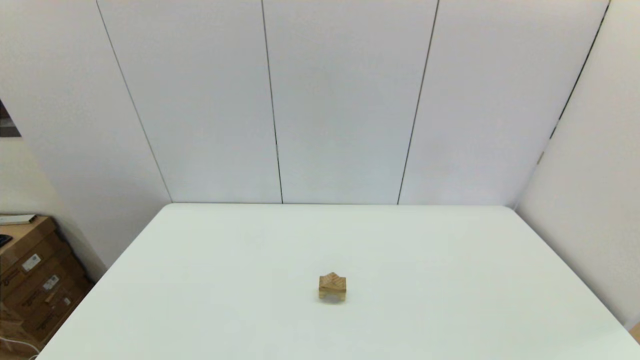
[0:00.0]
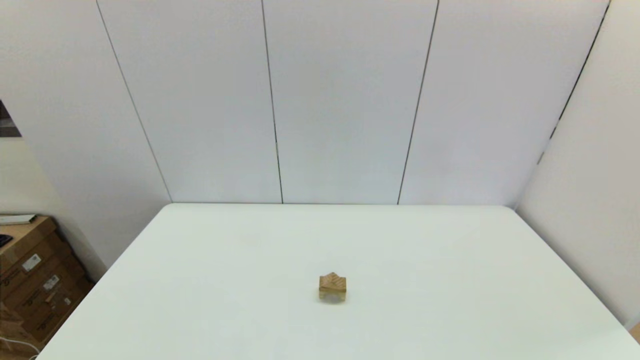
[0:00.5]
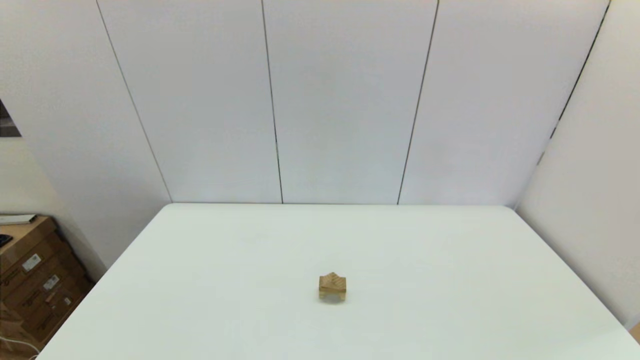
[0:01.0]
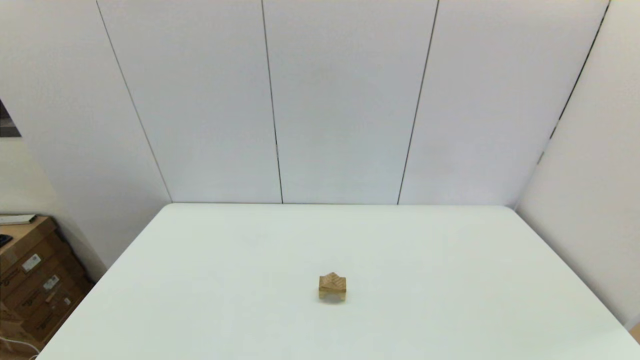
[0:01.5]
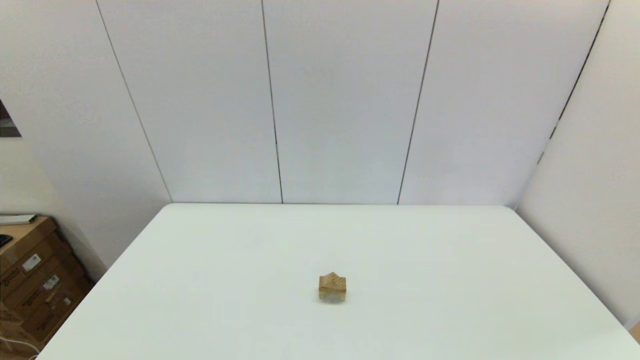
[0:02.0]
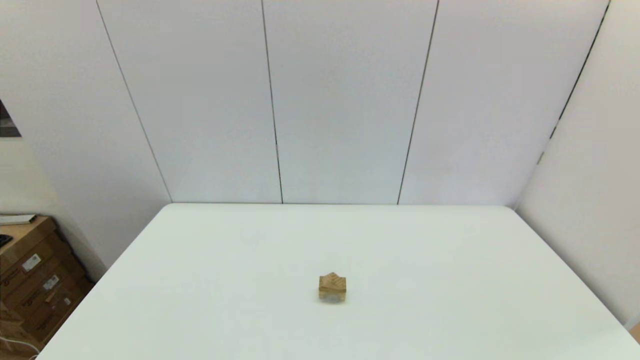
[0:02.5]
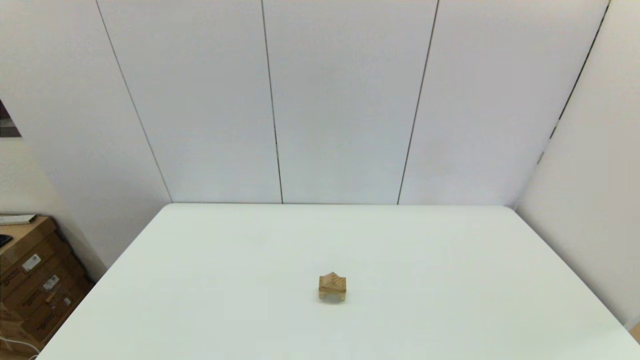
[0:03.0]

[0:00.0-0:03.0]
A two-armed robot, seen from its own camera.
Task of the whole recording: place the arched building blocks in the center of the table, set up the rectangular building blocks, and then set up the triangular building blocks.
0:01.5 to 0:03.0: Both grippers stay put.

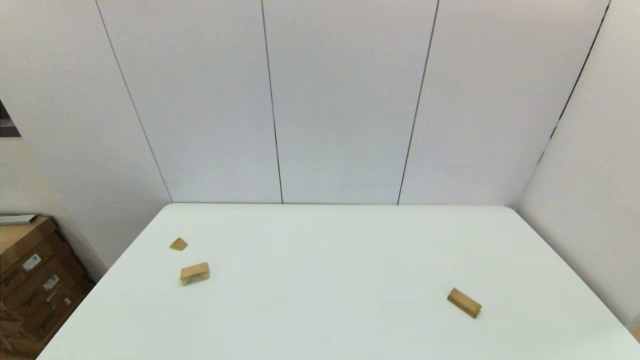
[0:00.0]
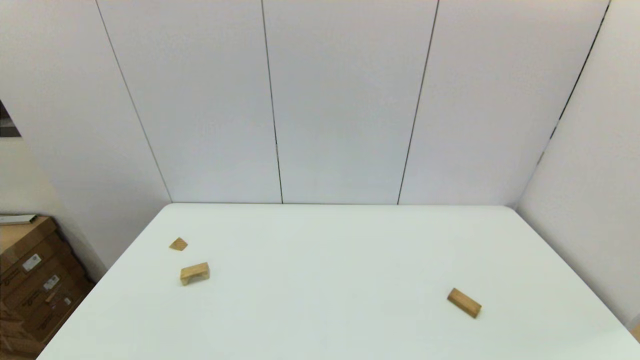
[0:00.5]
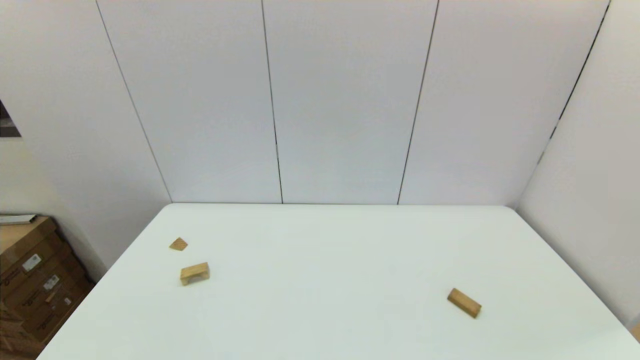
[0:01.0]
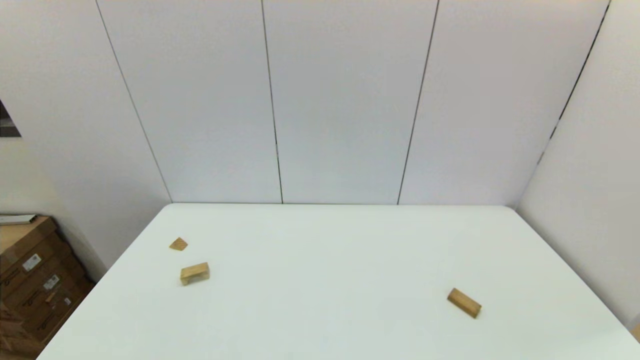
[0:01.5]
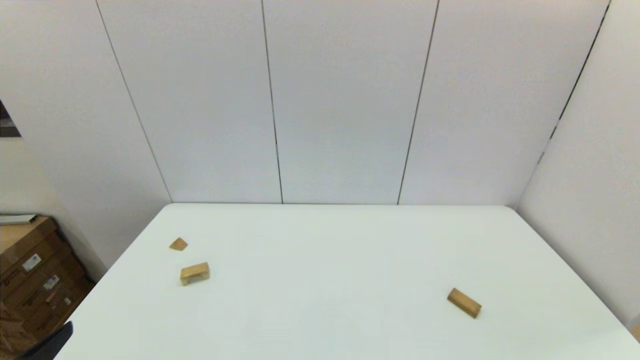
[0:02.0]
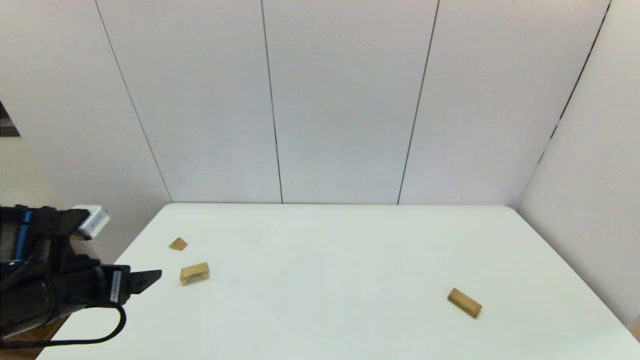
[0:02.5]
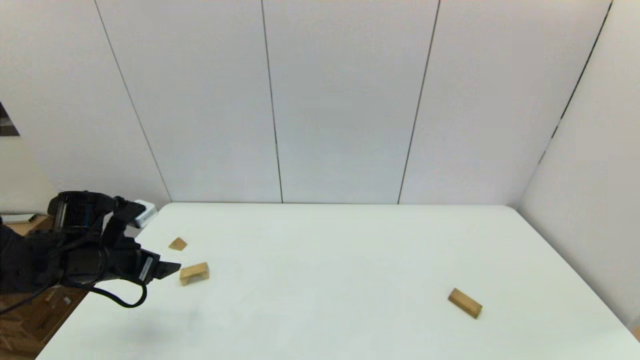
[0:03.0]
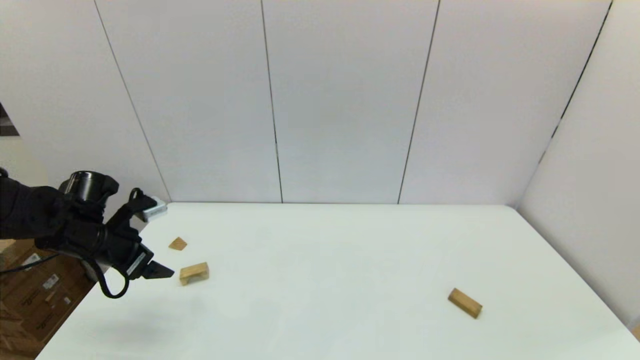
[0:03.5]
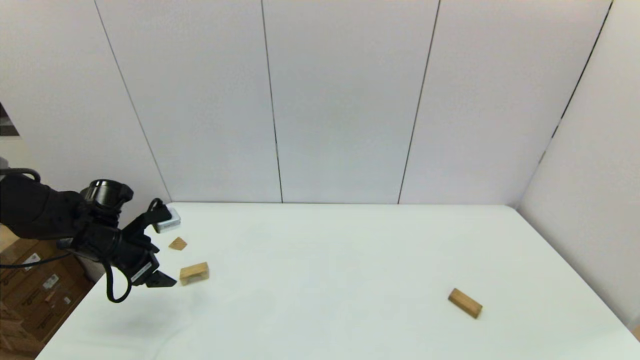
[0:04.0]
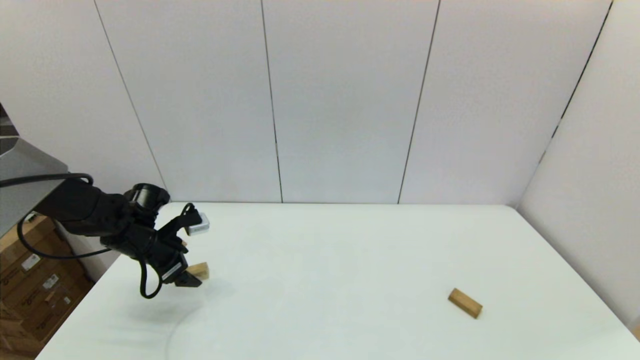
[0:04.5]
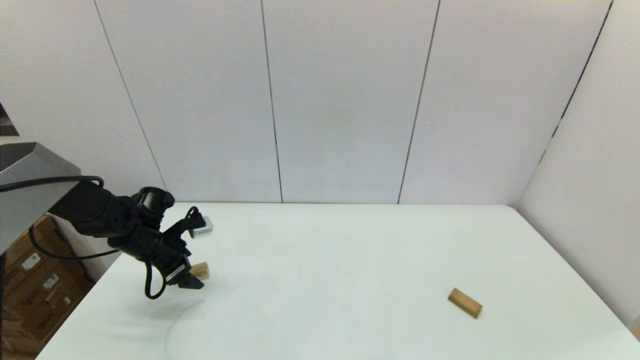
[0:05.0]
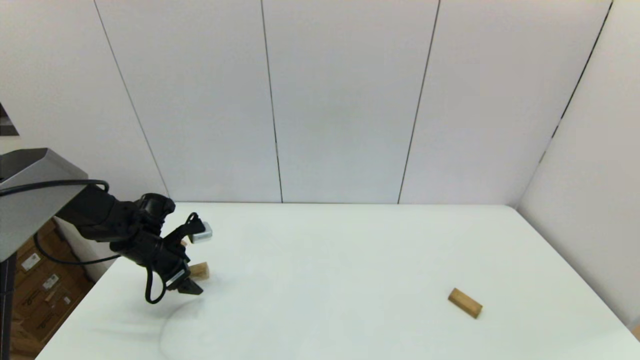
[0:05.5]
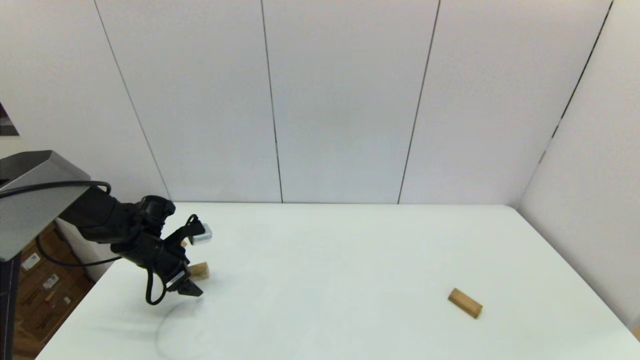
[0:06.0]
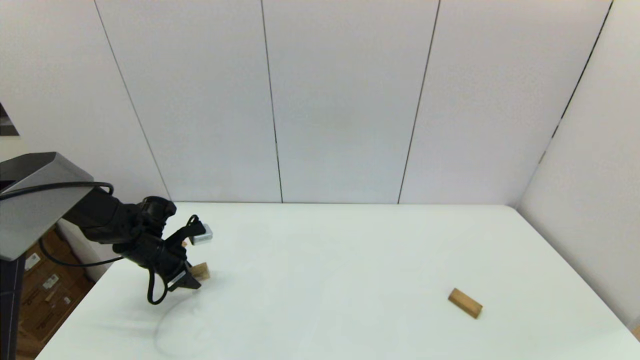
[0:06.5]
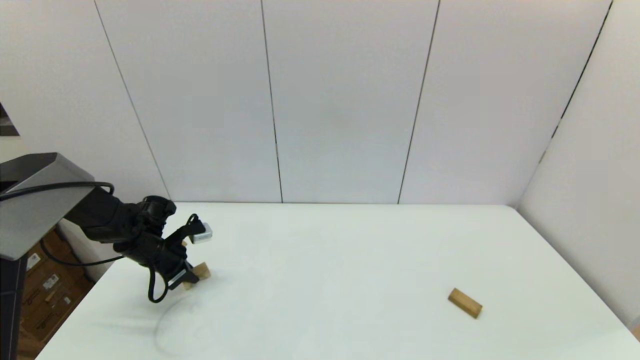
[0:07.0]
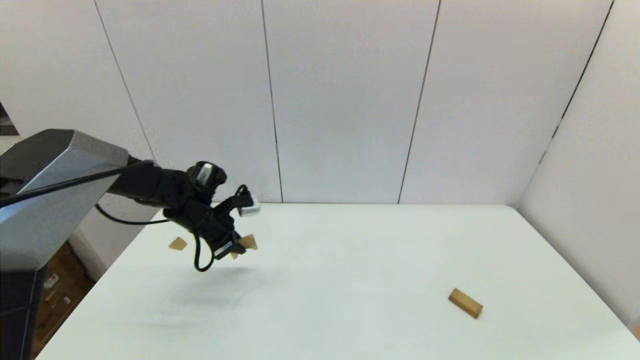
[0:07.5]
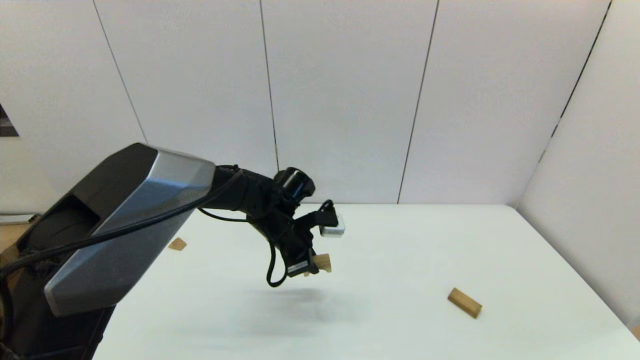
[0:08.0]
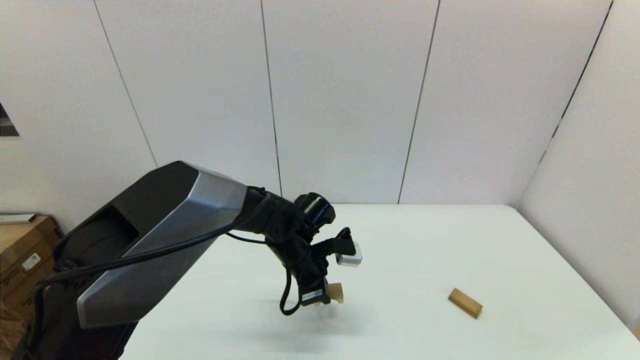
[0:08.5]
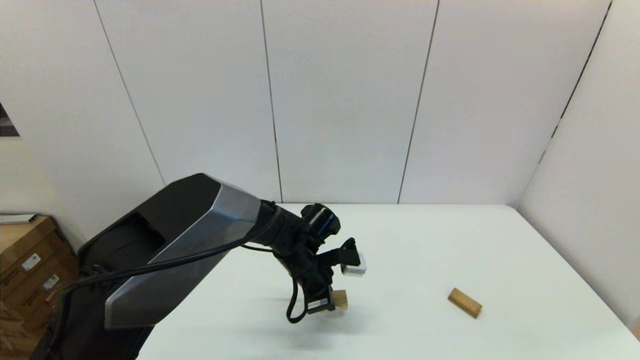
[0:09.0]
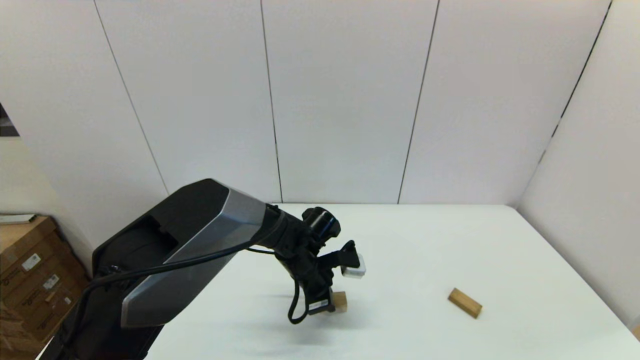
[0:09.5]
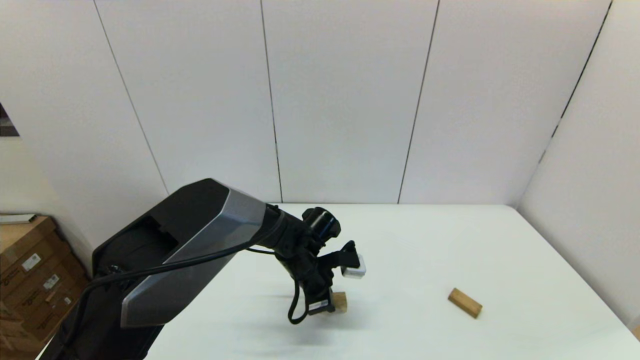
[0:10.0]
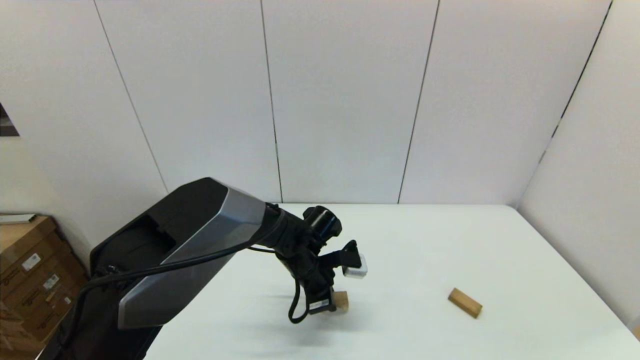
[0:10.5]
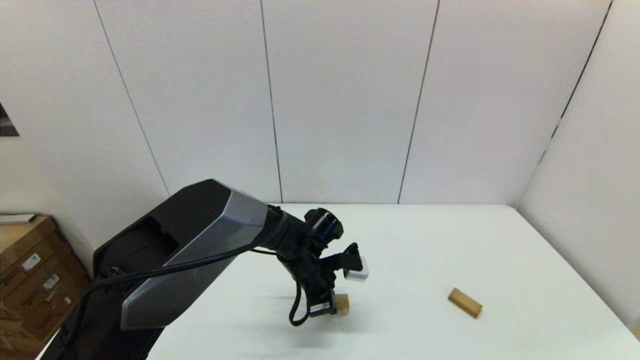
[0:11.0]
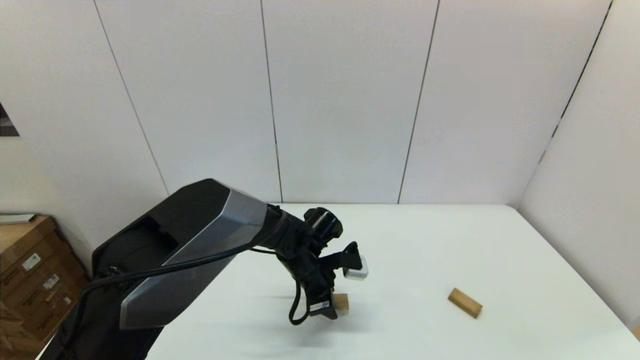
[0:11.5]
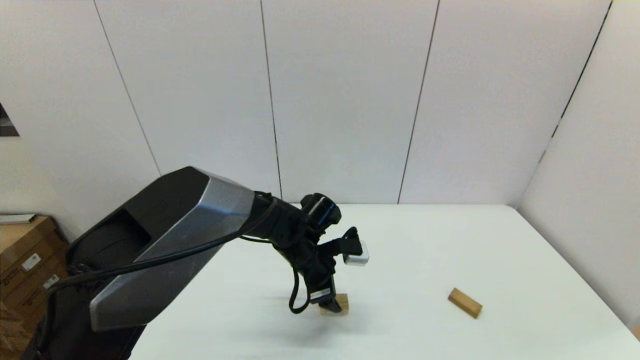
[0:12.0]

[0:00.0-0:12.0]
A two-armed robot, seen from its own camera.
Task of the whole recording: place the arched building blocks in the center of the table, set up the rectangular building blocks, and then set up the triangular building blocks.
Step, 0:02.0 to 0:06.5: Grasp the arch-shaped block with the left gripper.
Step, 0:07.0 to 0:11.0: Place the arch-shaped block in the center of view with the left gripper.
0:02.0 to 0:04.0: The left gripper shifts roughly 30 cm forward.
0:04.0 to 0:06.0: The left gripper shifts some 5 cm downward.
0:06.0 to 0:08.0: The left gripper goes approximately 25 cm to the right, and closes its fingers.
0:08.0 to 0:10.0: The left gripper shifts approximately 5 cm downward.
0:10.0 to 0:12.0: The left gripper opens up.

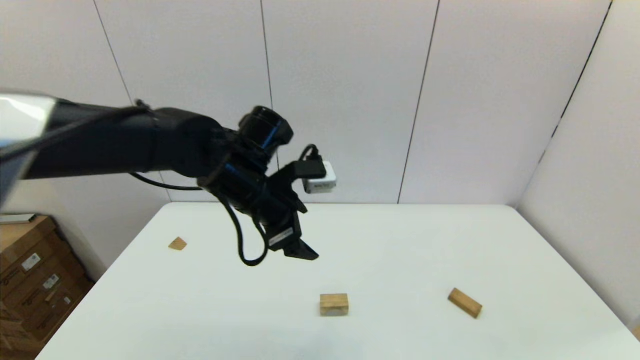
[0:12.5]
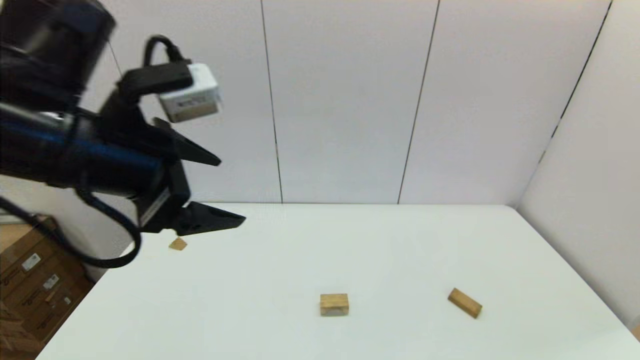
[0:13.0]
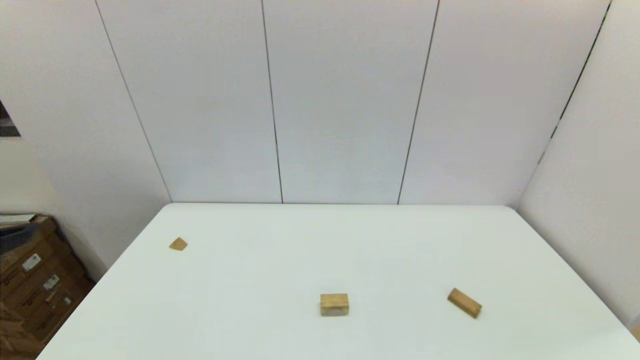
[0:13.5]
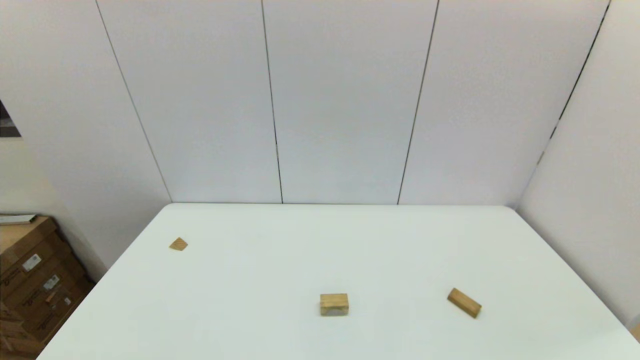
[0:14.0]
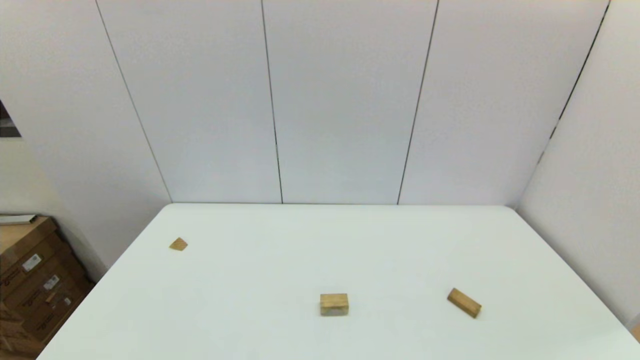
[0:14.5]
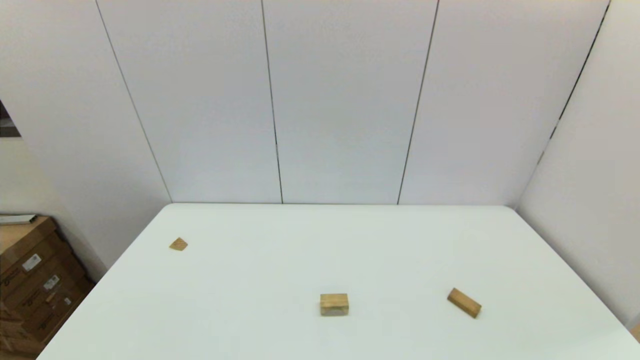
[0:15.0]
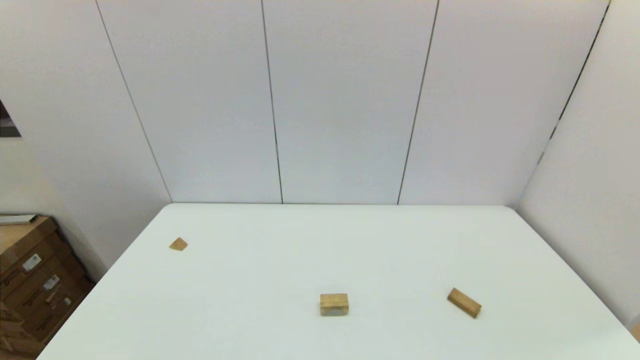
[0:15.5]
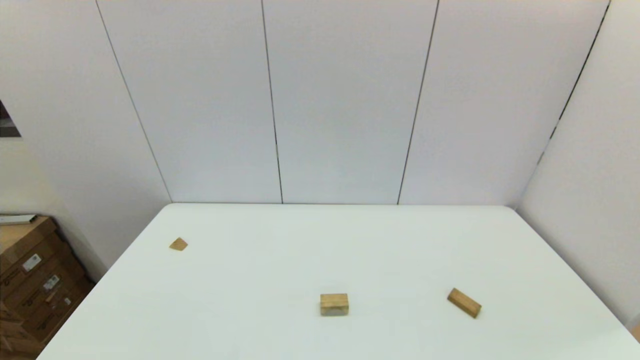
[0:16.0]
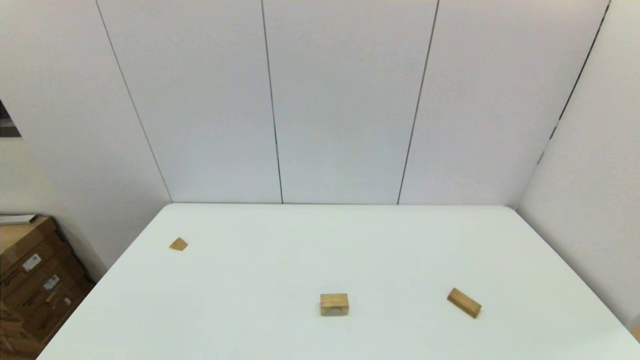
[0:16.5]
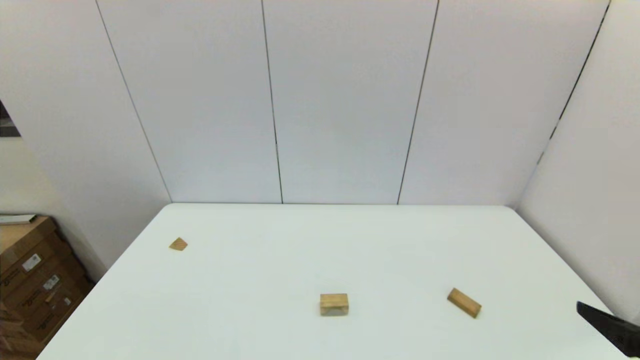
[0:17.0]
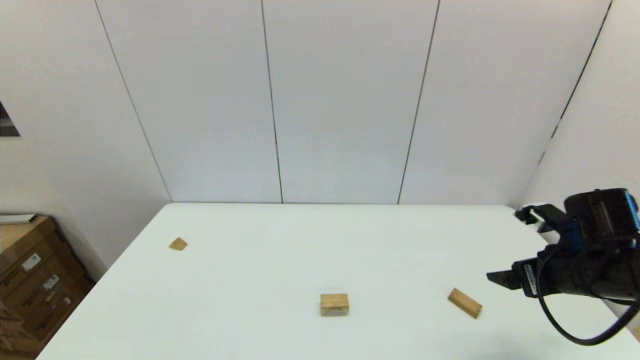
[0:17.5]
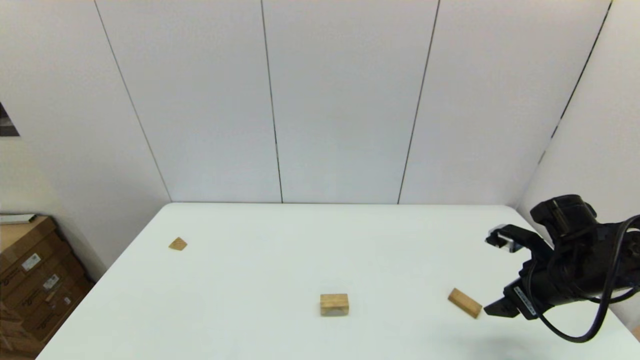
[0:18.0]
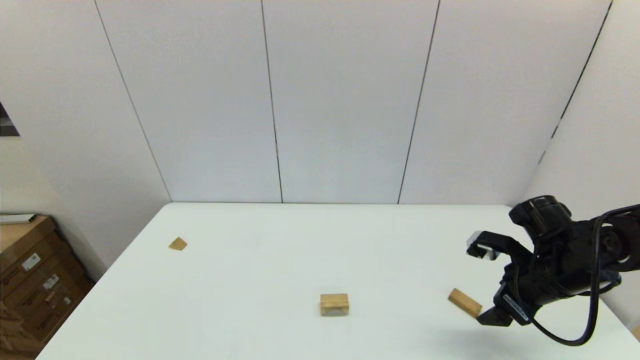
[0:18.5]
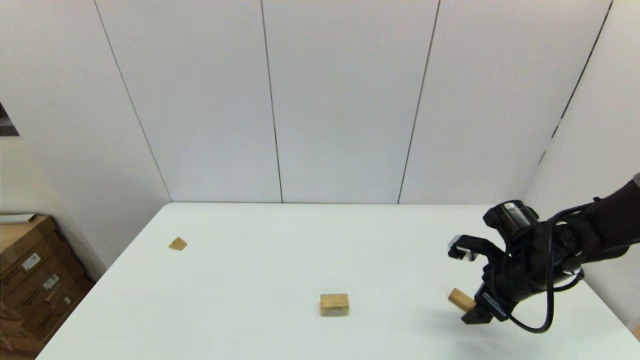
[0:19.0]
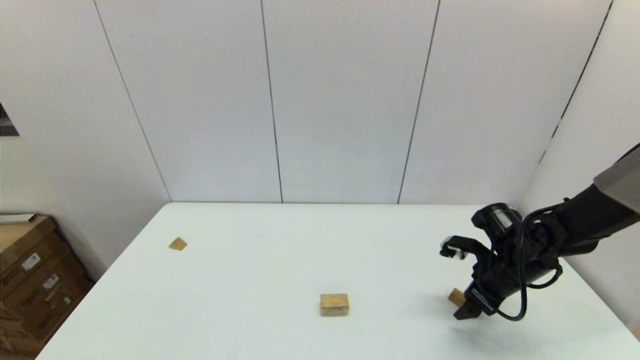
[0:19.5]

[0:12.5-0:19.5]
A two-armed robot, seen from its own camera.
Task of the whole recording: place the arched building blocks in the center of the table, set up the rectangular building blocks, and then set up the triangular building blocks.
0:12.5 to 0:14.5: The left gripper heads backward and to the left, covering approximately 40 cm.
0:16.0 to 0:17.5: The right gripper goes roughly 25 cm forward.
0:17.5 to 0:19.5: The right gripper is displaced downward and forward by about 10 cm.
